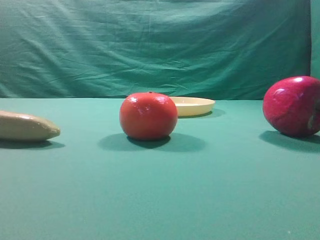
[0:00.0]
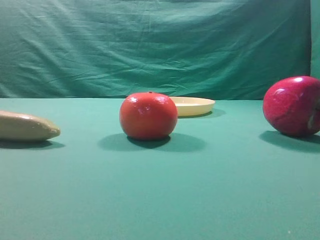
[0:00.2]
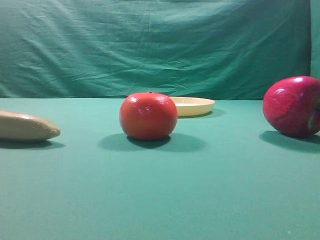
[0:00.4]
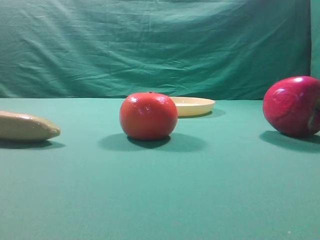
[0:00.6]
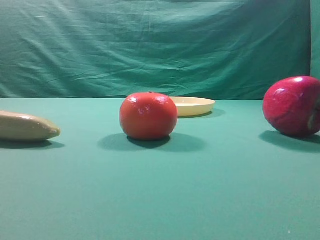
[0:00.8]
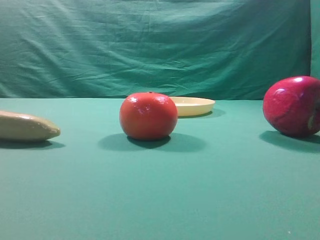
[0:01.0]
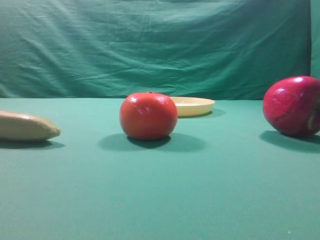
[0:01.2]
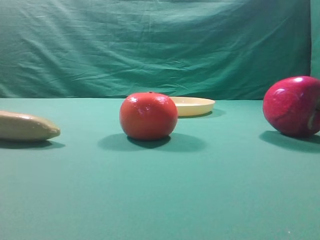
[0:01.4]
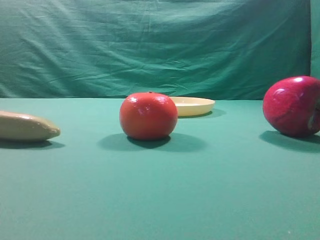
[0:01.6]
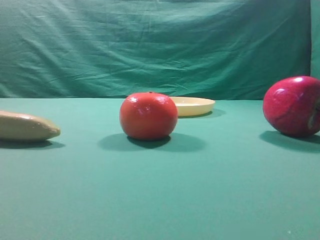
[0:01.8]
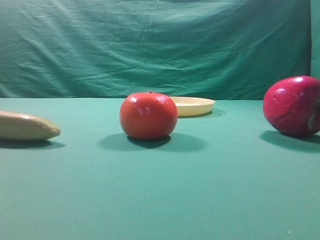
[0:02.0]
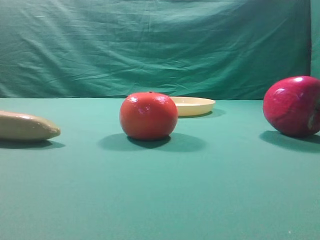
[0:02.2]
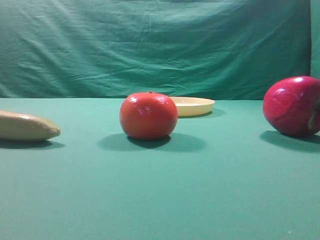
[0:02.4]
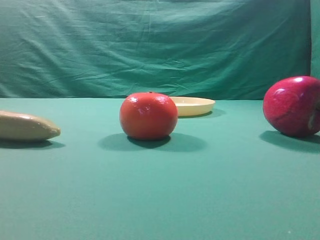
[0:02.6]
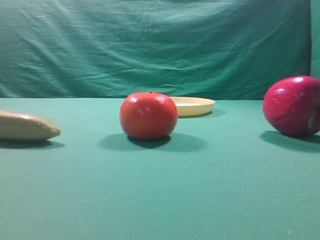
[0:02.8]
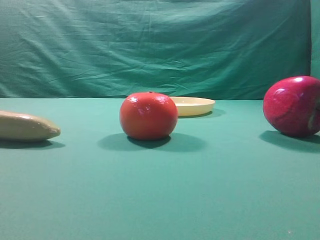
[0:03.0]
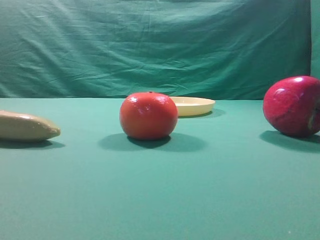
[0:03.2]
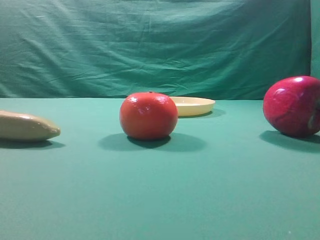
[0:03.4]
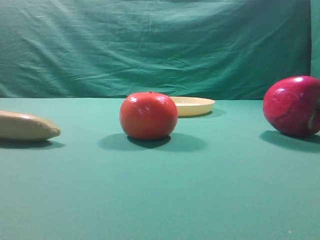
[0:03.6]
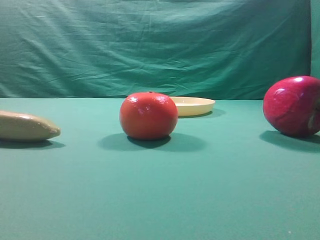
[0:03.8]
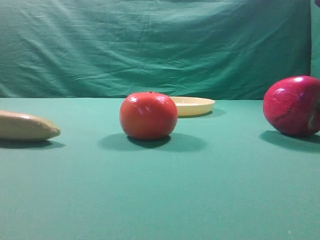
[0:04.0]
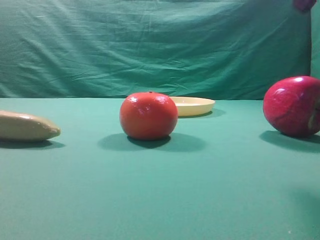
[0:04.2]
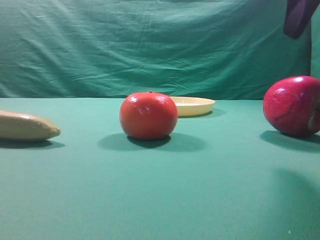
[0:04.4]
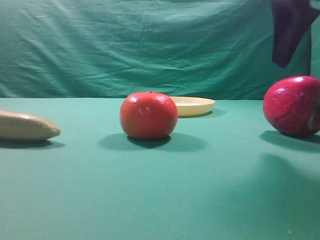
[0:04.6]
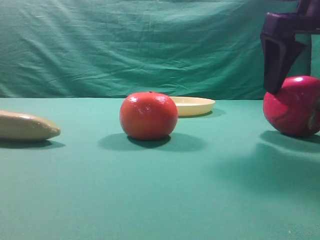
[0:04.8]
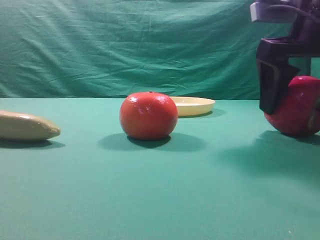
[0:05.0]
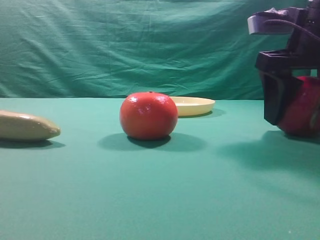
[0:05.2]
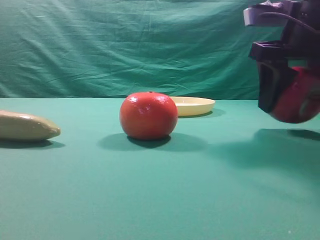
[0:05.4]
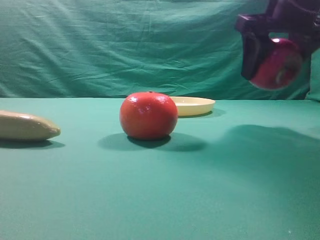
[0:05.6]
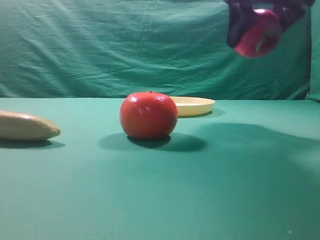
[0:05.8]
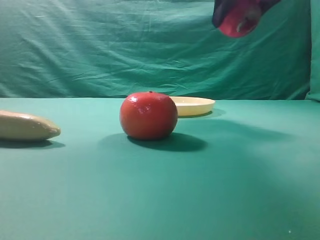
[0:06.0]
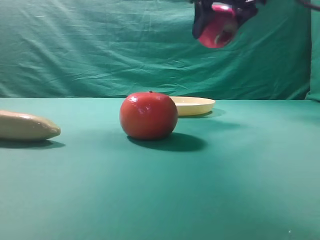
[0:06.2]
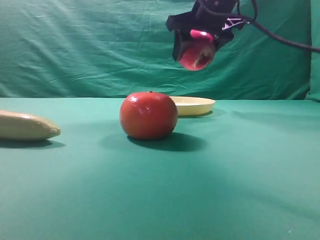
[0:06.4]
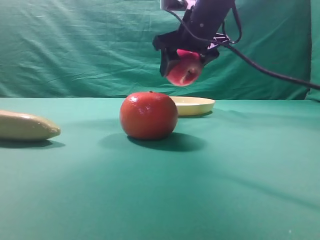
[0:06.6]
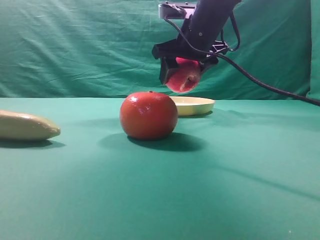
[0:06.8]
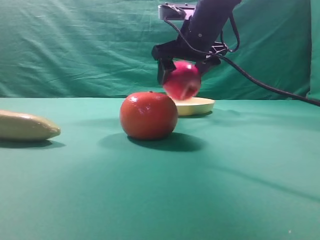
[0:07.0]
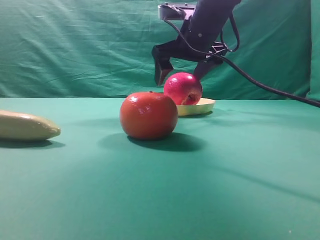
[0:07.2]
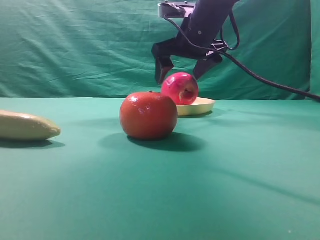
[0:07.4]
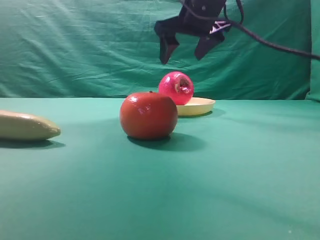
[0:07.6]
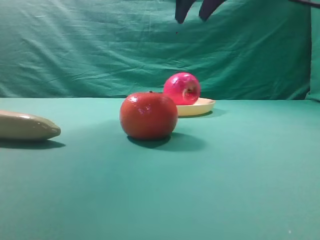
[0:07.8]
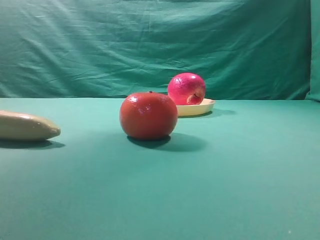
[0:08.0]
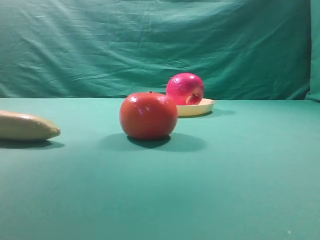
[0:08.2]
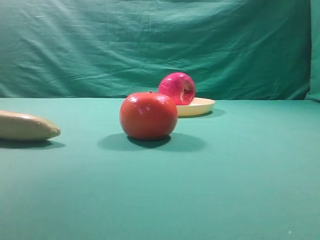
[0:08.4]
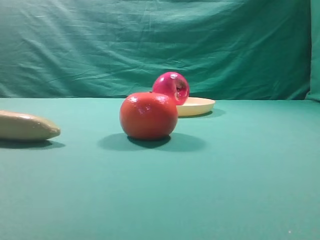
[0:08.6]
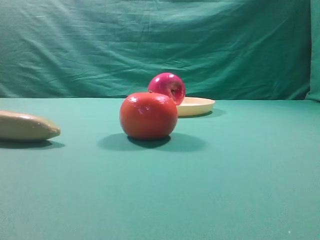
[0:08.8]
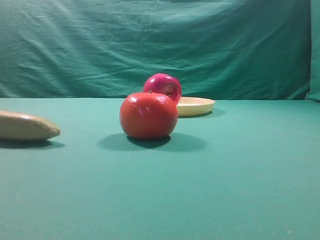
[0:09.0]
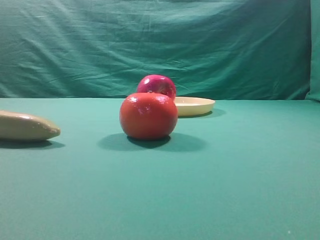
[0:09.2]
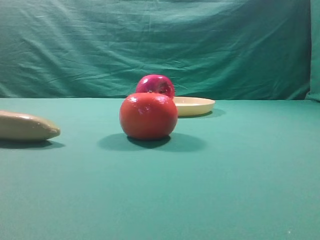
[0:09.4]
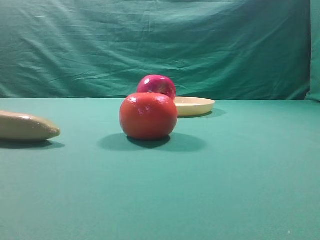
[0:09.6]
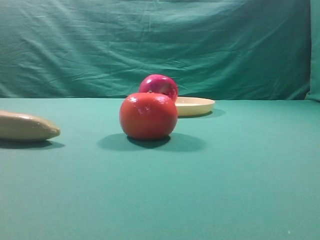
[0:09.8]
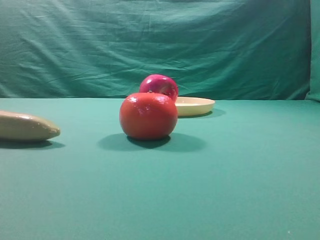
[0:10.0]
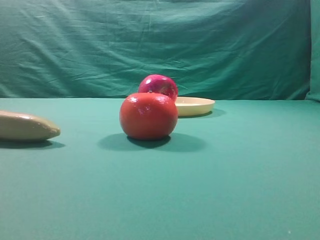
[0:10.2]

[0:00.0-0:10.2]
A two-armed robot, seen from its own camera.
Task of the whole recording: grasp the apple and place it into the yellow plate.
Step, 0:00.0 to 0:05.2: Grasp the fruit that can keep the doctor away.
Step, 0:05.6 to 0:07.4: Place the picked object into the yellow plate.

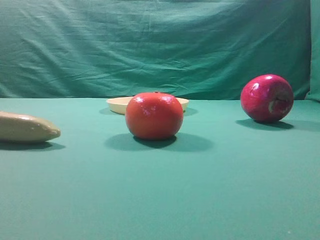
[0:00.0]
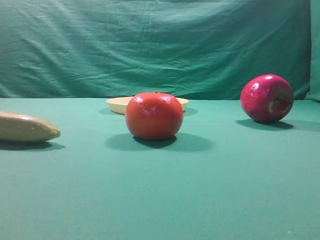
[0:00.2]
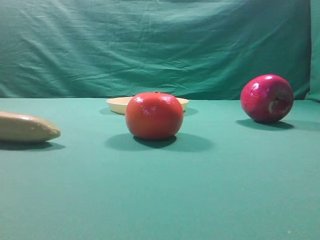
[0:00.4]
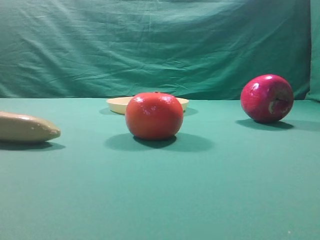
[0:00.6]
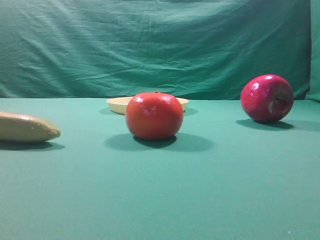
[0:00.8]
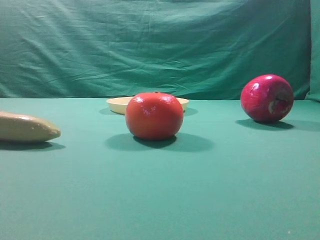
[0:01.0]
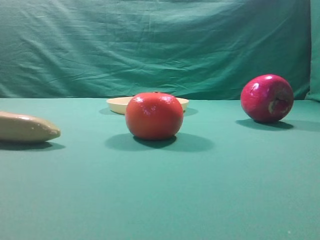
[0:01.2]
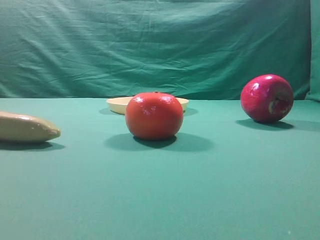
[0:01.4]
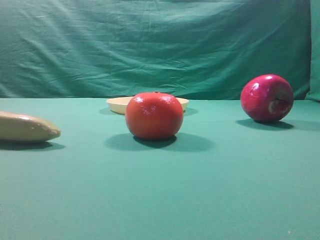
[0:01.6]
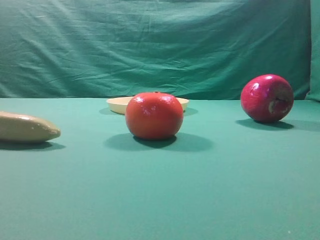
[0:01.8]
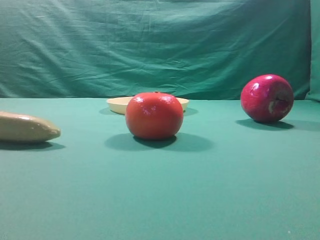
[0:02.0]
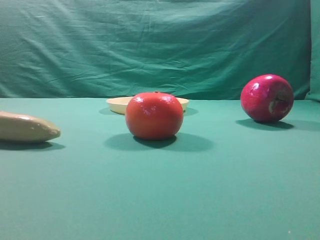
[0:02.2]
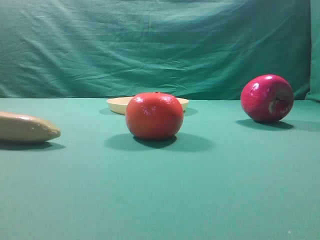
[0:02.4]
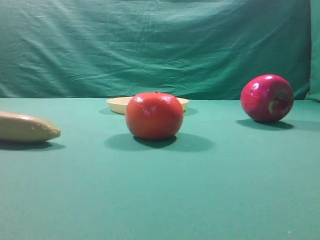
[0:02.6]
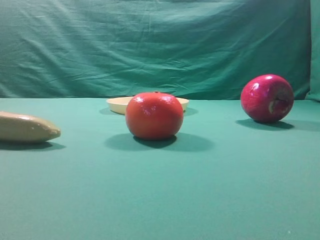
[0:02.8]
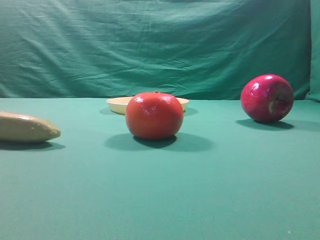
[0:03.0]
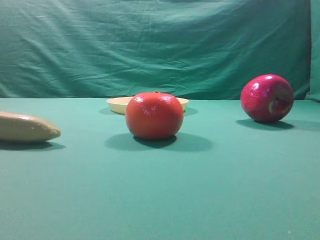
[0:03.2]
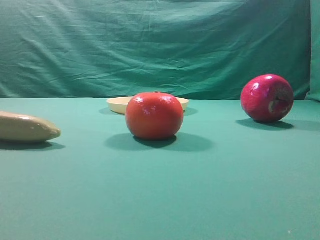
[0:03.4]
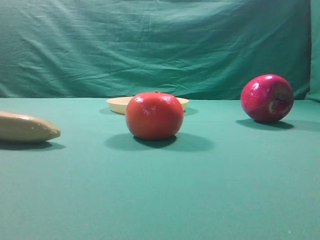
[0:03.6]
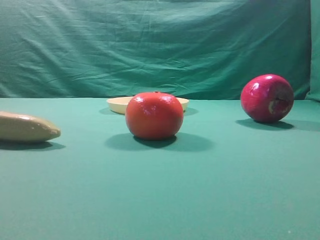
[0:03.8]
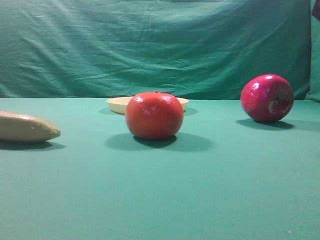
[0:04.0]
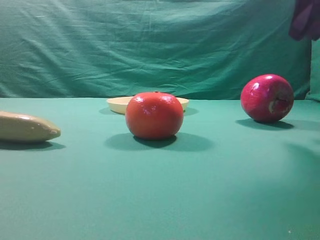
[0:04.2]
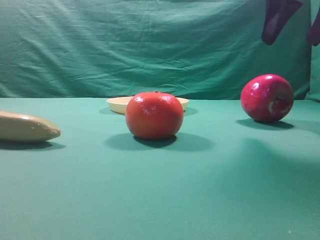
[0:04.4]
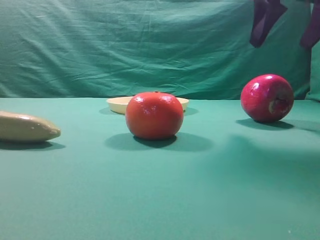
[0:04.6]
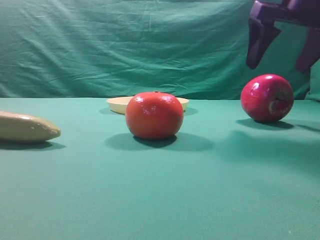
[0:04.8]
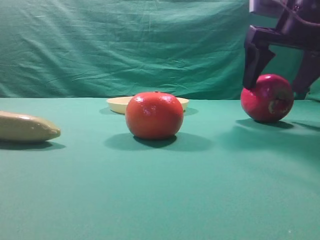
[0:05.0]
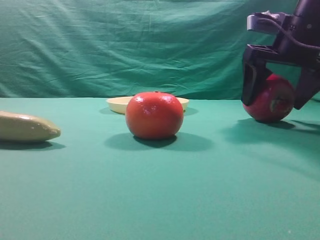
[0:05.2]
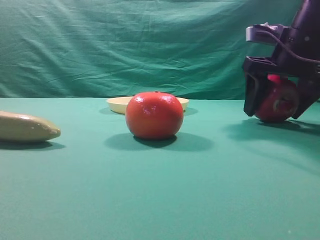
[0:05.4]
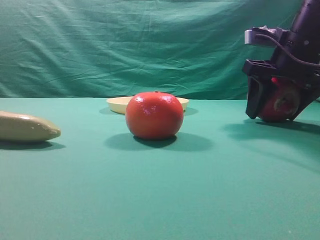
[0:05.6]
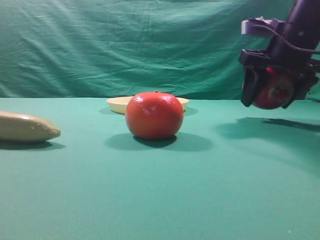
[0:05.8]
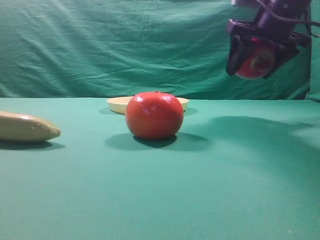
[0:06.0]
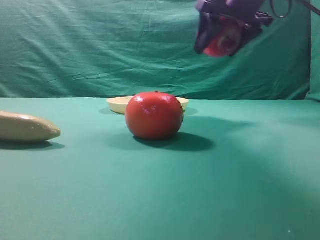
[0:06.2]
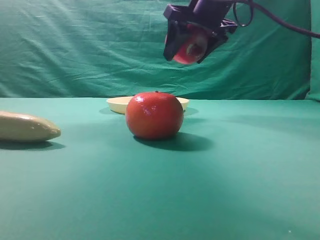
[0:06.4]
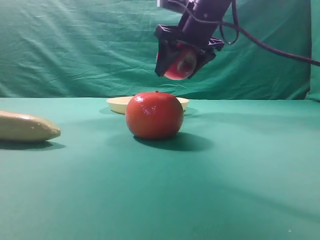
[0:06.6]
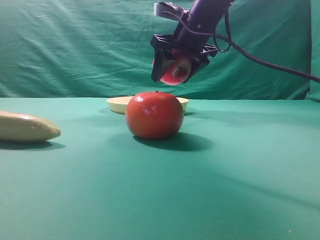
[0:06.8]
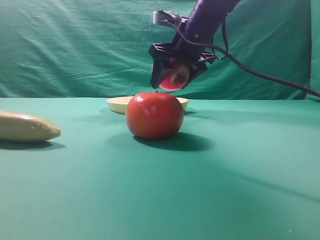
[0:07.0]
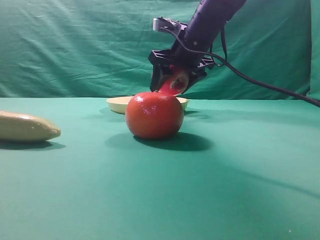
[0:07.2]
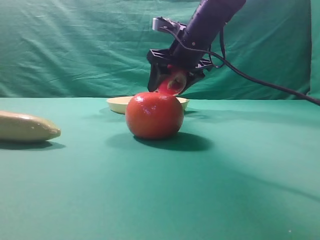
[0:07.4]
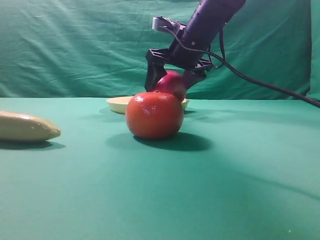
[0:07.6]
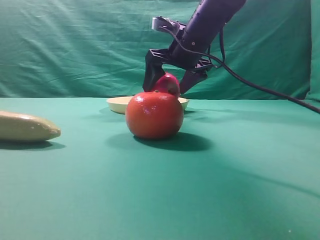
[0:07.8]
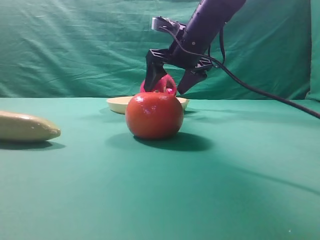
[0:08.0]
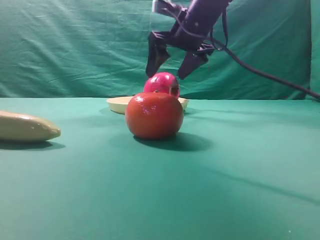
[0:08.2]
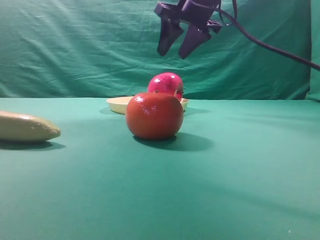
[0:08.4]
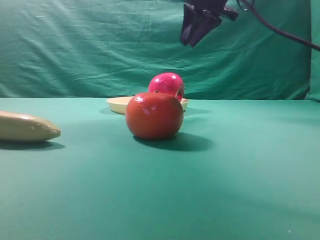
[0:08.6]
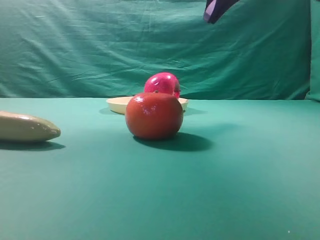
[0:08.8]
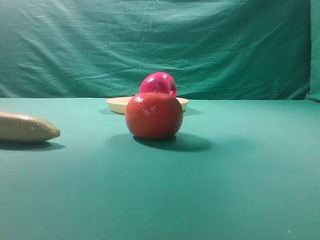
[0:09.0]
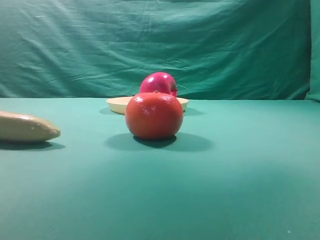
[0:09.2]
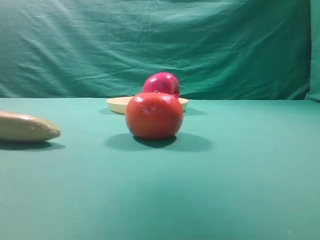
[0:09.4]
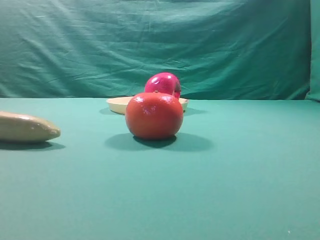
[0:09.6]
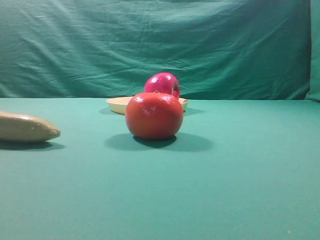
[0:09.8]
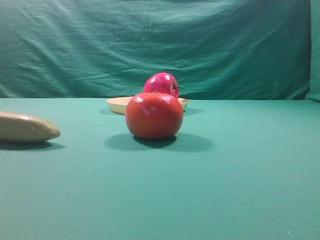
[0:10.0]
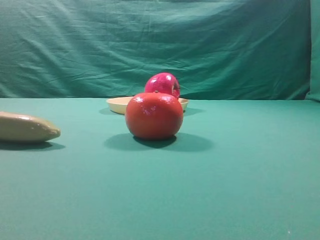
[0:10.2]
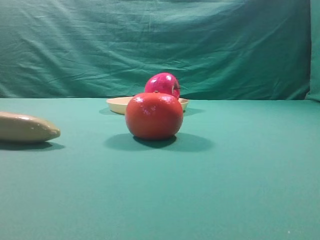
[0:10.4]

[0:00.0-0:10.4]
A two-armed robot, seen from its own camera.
Task of the whole recording: grasp the apple and place it into the yellow plate.
Step, 0:00.0 to 0:05.8: Grasp the fruit that can keep the doctor away.
Step, 0:06.0 to 0:08.2: Place the picked object into the yellow plate.
